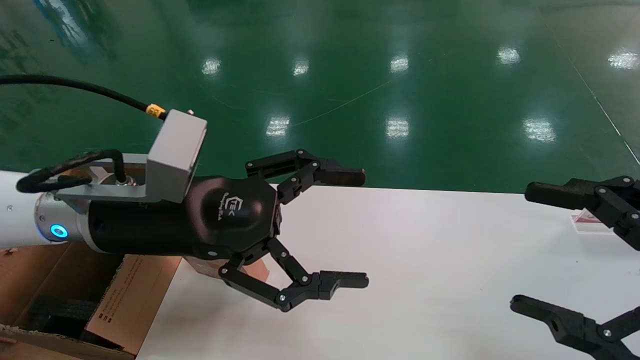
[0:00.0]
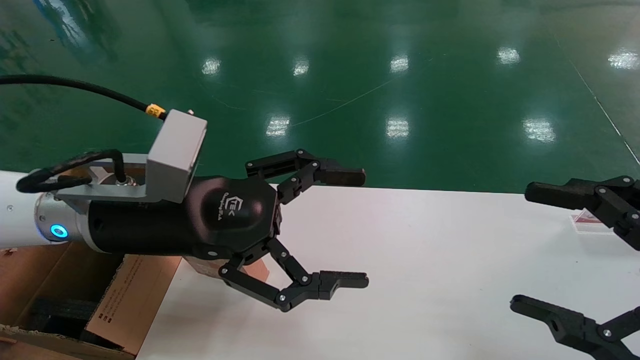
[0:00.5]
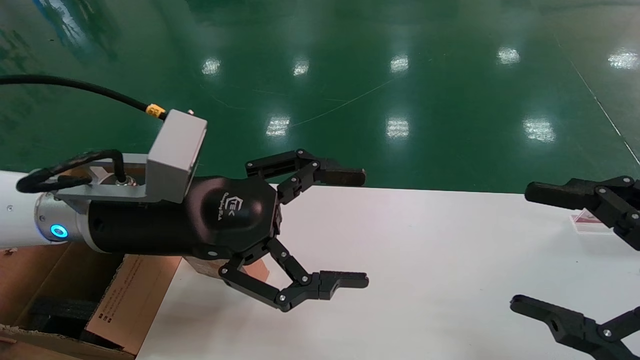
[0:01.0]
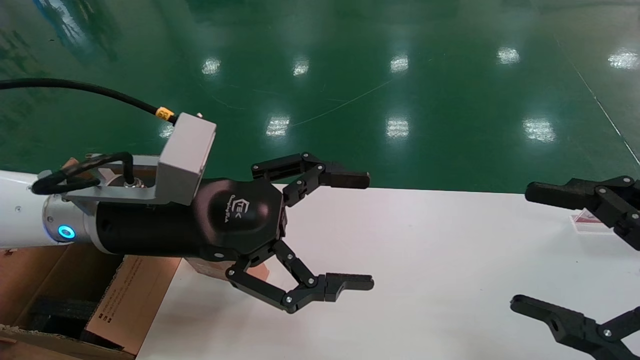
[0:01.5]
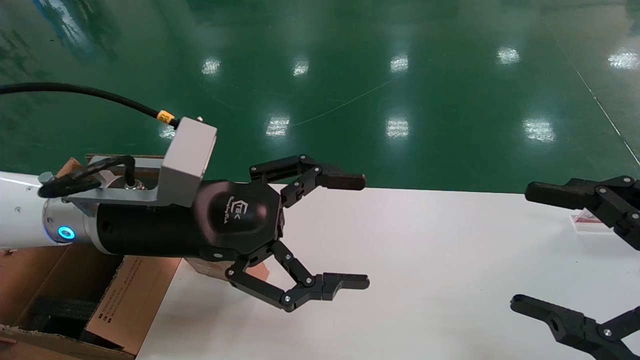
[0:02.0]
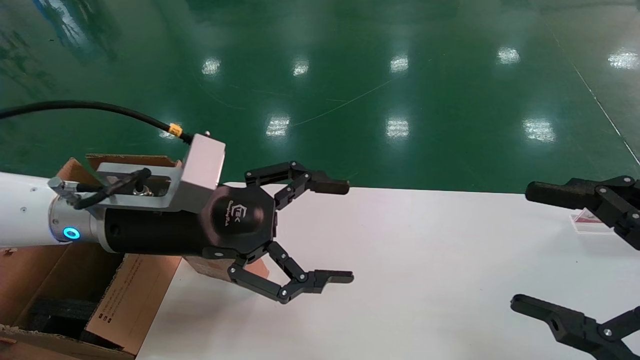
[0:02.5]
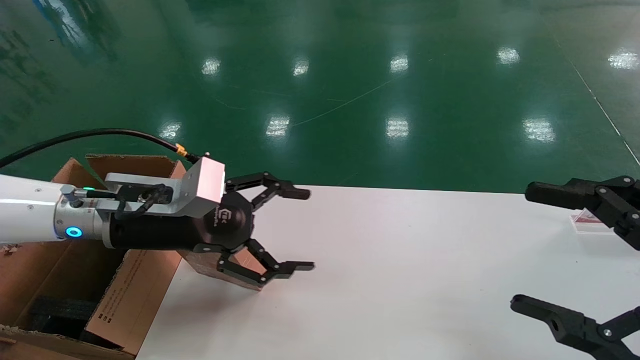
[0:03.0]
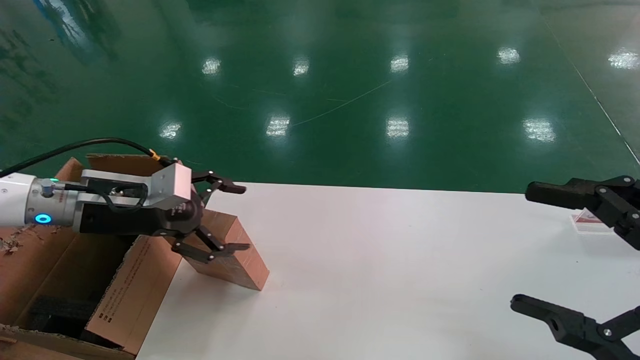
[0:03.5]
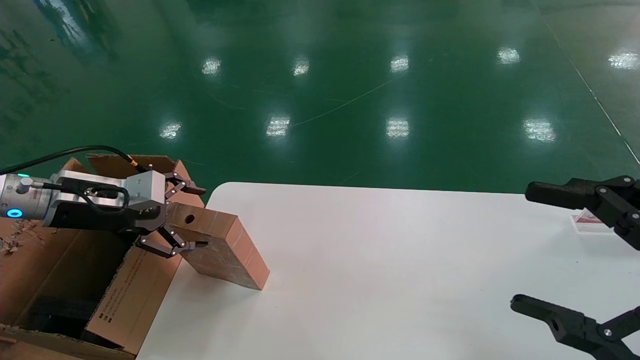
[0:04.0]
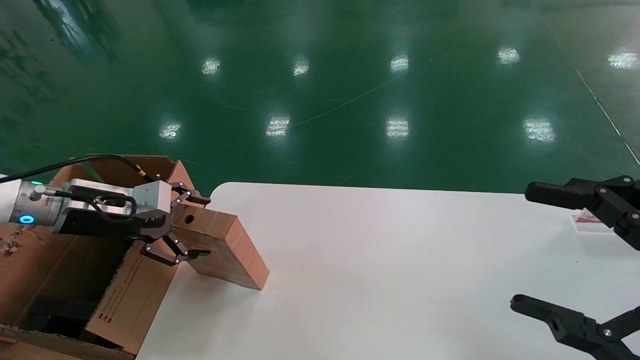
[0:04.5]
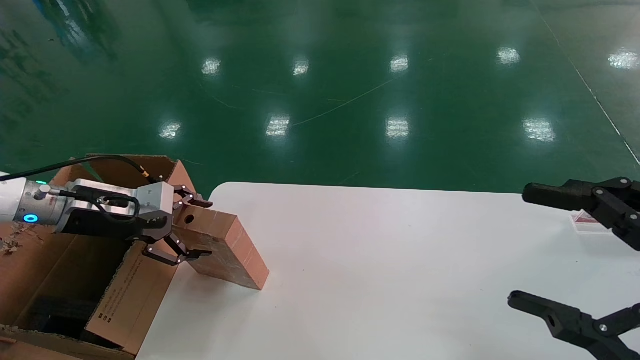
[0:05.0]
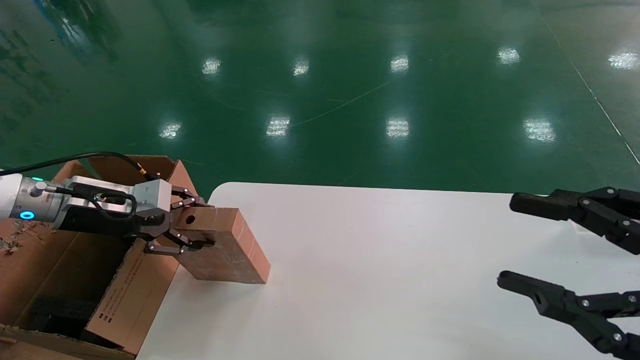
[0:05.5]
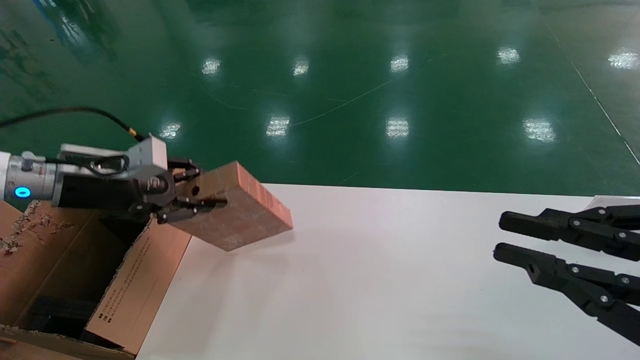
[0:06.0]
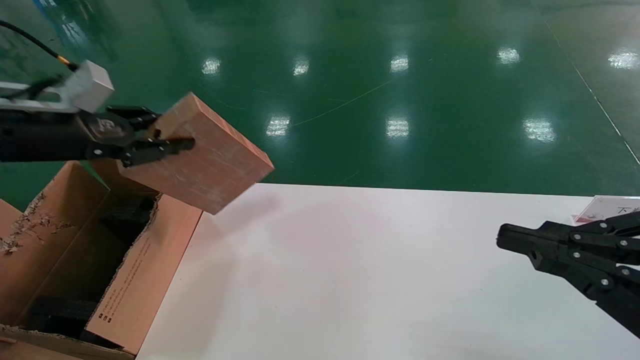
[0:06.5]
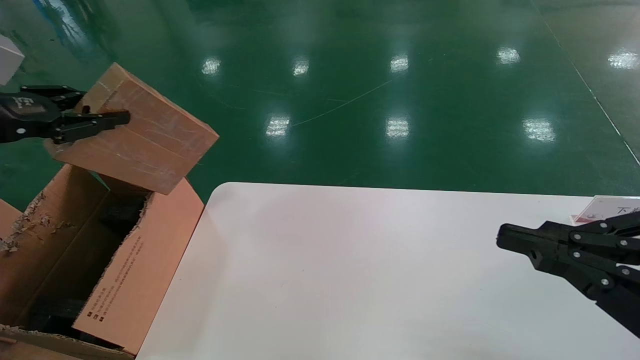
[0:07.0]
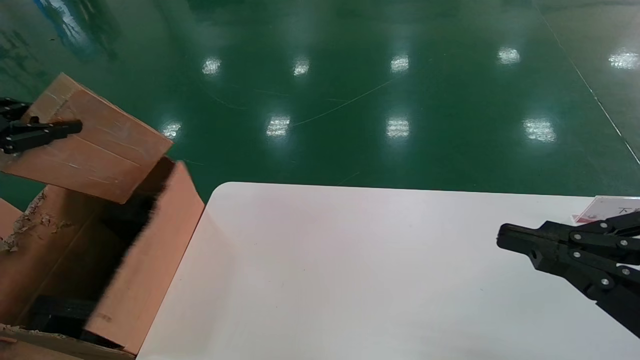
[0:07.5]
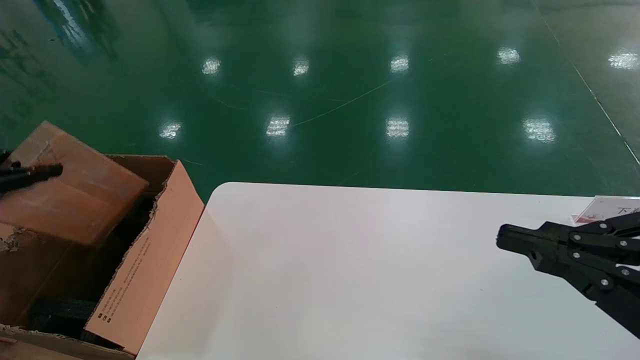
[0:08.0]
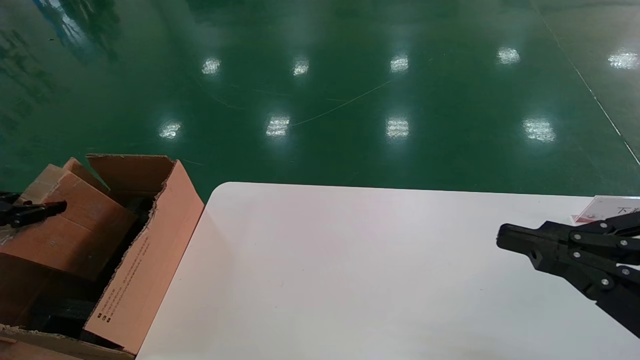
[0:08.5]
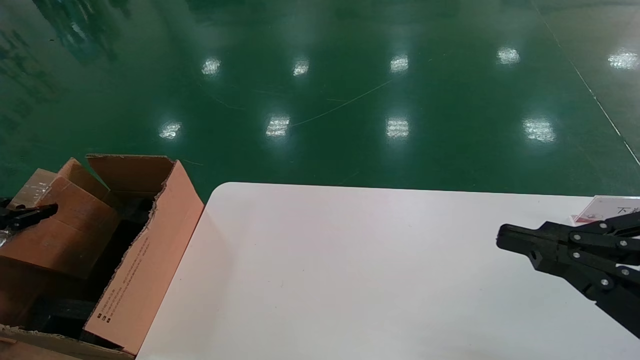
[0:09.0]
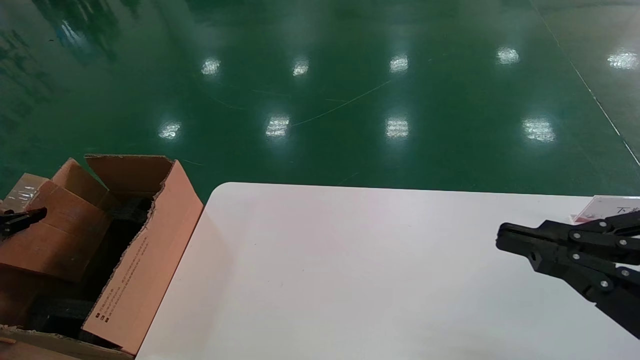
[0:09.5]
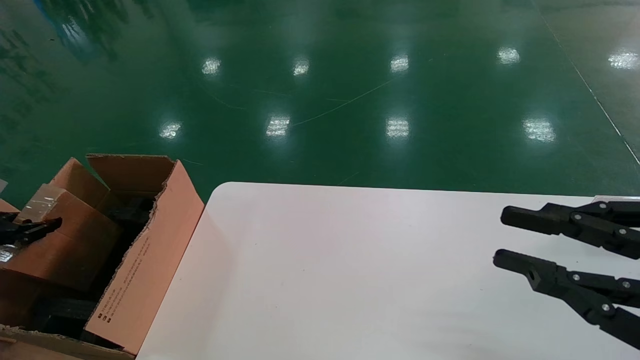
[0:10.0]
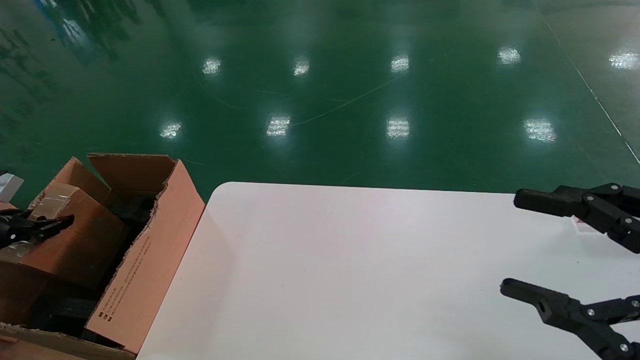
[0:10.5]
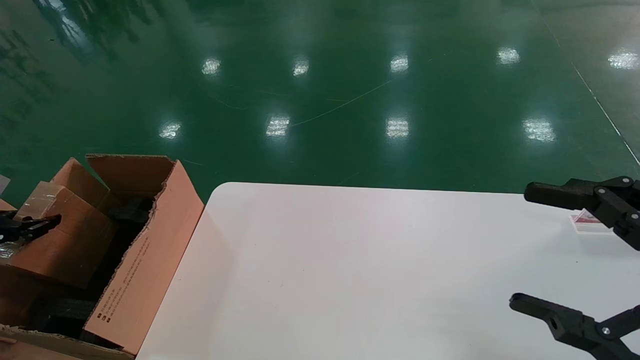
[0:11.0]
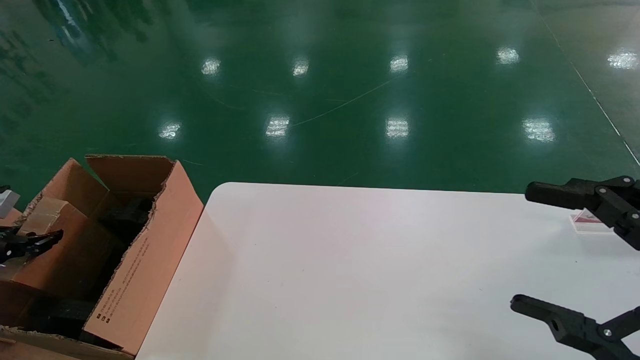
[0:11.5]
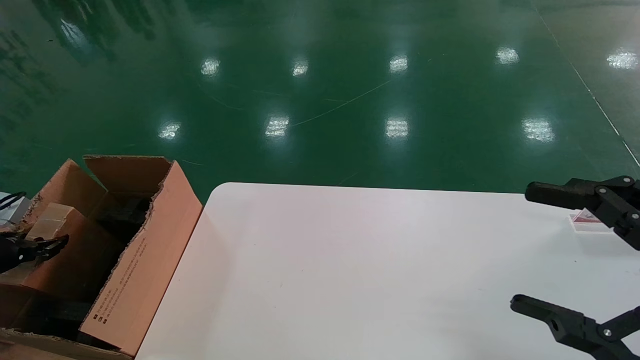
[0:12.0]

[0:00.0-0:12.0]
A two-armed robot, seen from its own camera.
Task of the whole recording: put the box on the table into the big box.
Step, 0:02.5 to 0:05.5: Pick up the mouse and the power cord paper box.
0:00.0 to 0:02.0: Neither gripper changes place.
0:02.0 to 0:04.0: The left gripper shifts some 20 cm to the left.
0:04.0 to 0:06.0: The right gripper closes its fingers. Meanwhile the left gripper closes up.
0:06.0 to 0:08.0: The left gripper travels to the left and backward by approximately 20 cm.
0:08.0 to 0:10.0: The left gripper goes roughly 10 cm downward.
0:10.0 to 0:12.0: The right gripper opens up. The left gripper shifts by approximately 5 cm.

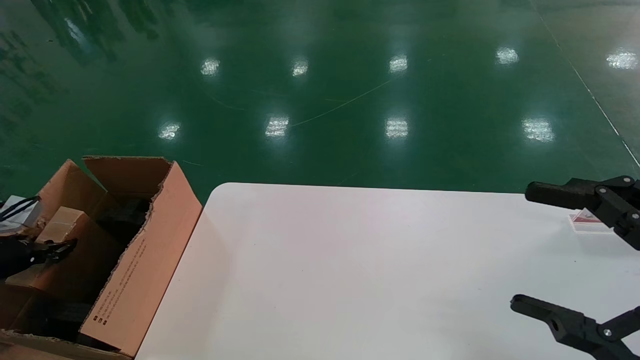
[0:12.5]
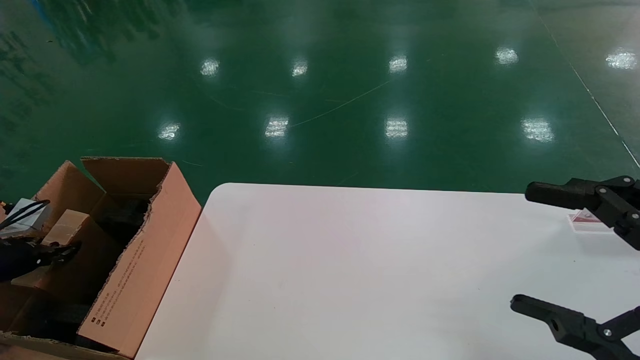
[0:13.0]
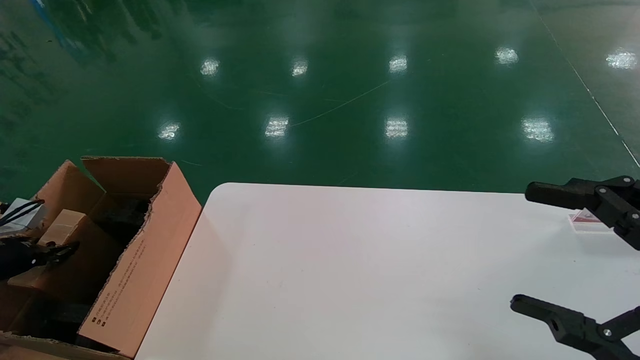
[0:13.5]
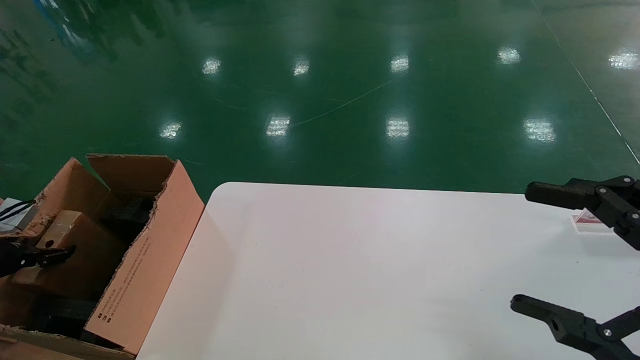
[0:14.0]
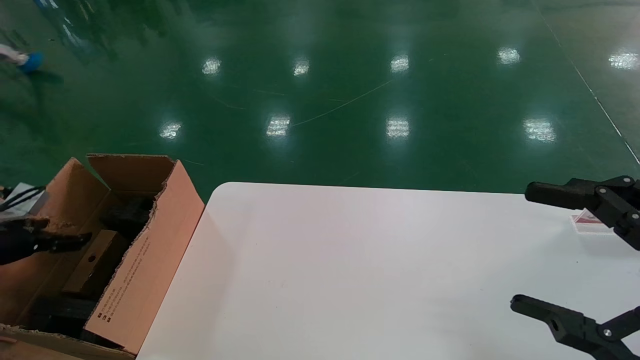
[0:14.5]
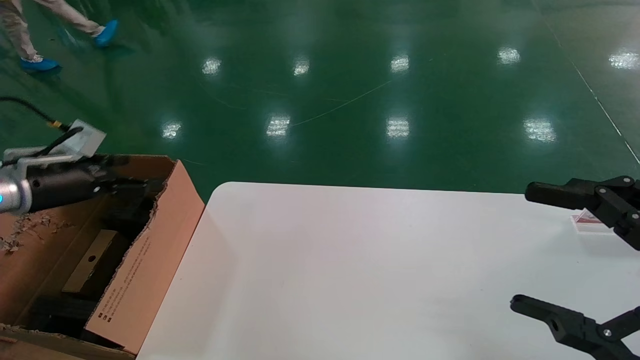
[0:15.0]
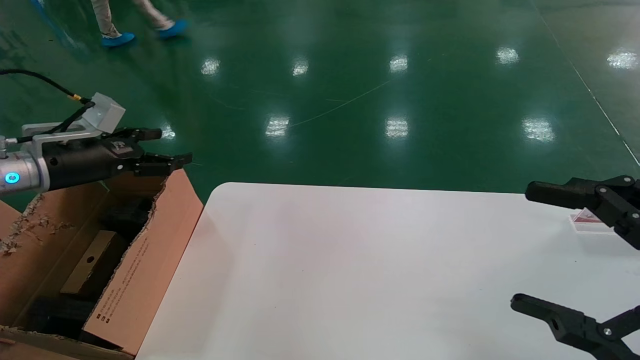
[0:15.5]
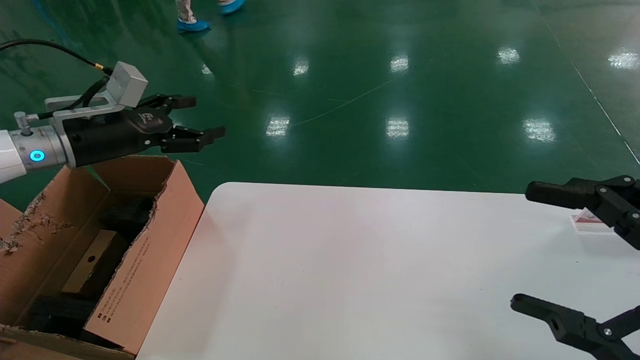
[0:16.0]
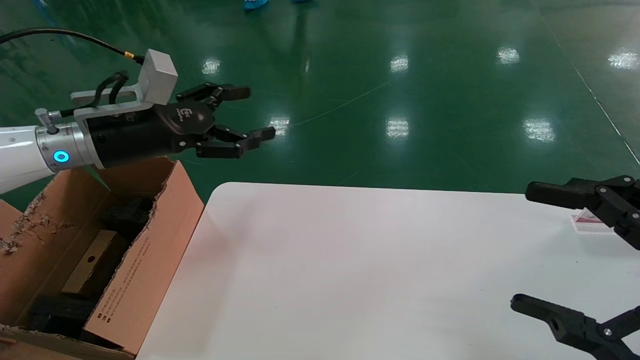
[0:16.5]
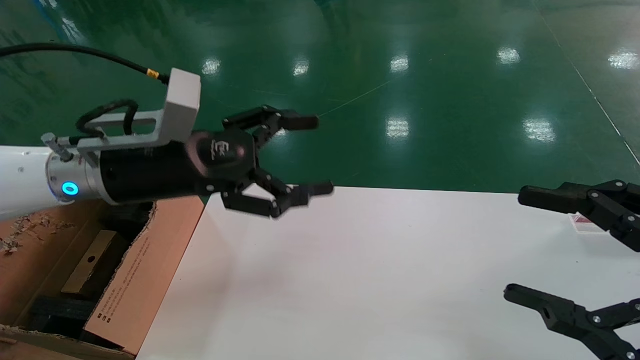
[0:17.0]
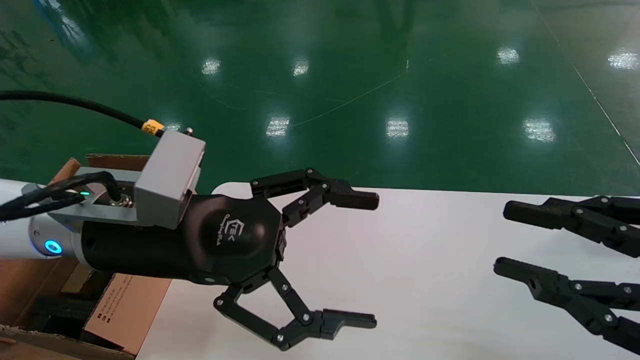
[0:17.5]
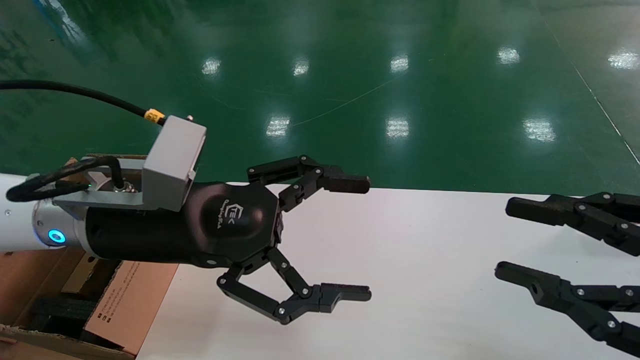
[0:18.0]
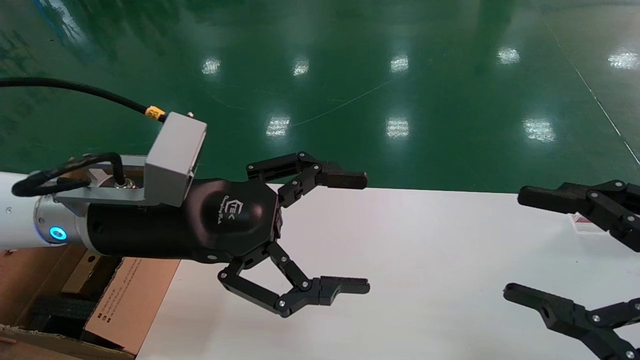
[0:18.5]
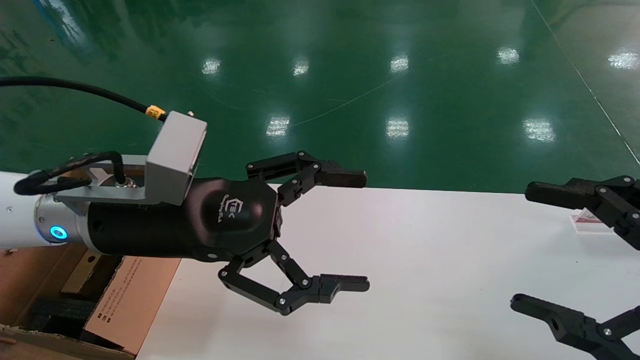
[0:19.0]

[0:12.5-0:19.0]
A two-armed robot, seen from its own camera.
Task of the whole recording: put the box on the table into the big box.
0:12.5 to 0:14.5: The left gripper opens.
0:14.5 to 0:17.0: The left gripper shifts roughly 40 cm to the right and upward.
0:17.0 to 0:19.0: The right gripper closes, then opens again. The left gripper heads backward, covering about 5 cm.
